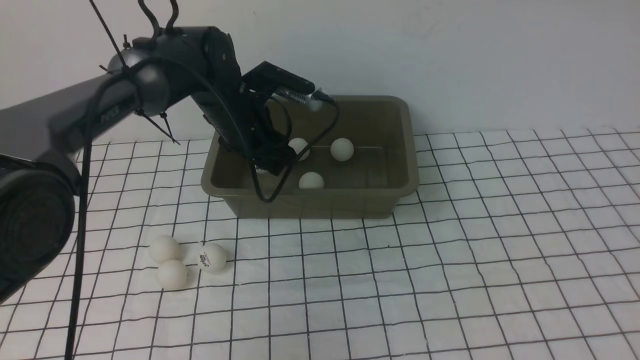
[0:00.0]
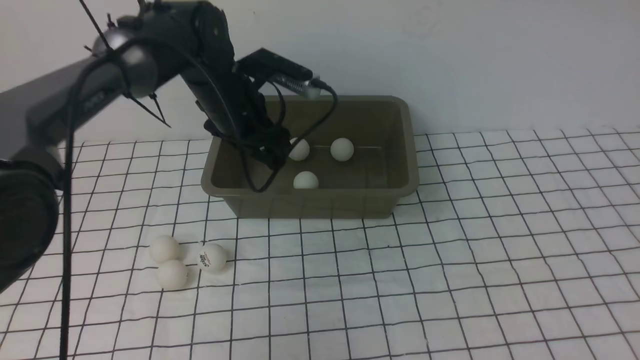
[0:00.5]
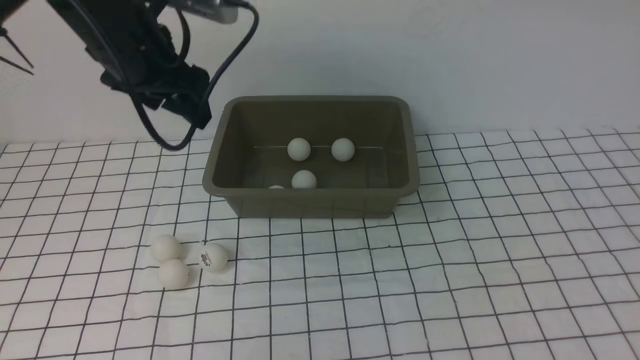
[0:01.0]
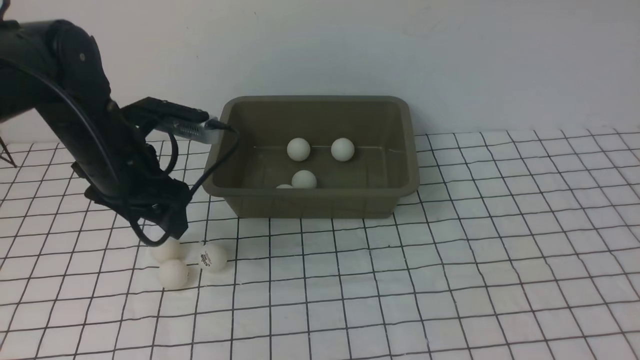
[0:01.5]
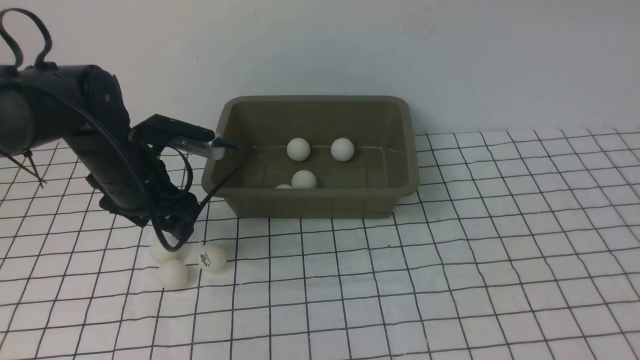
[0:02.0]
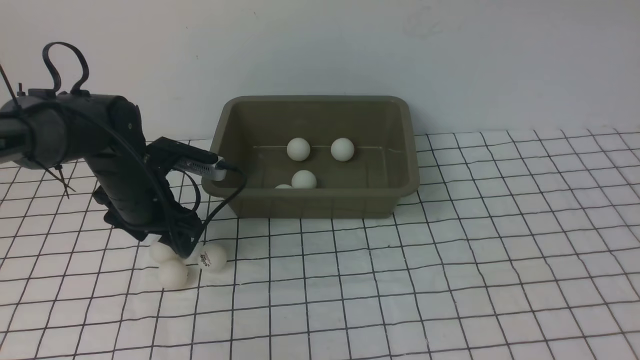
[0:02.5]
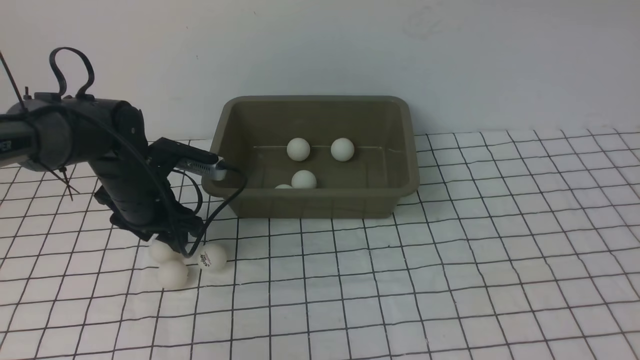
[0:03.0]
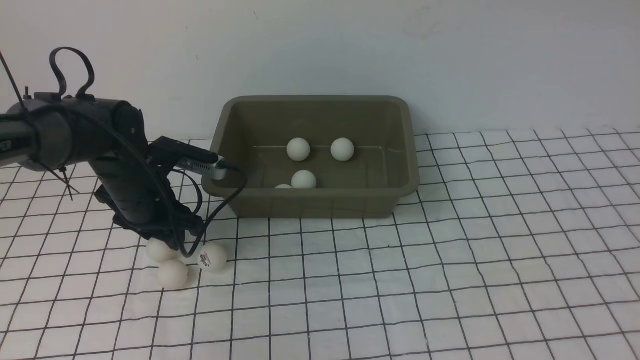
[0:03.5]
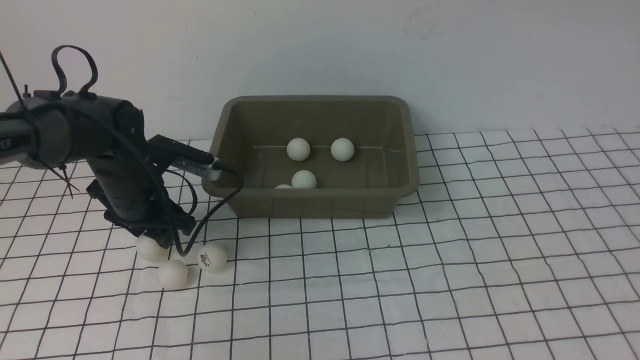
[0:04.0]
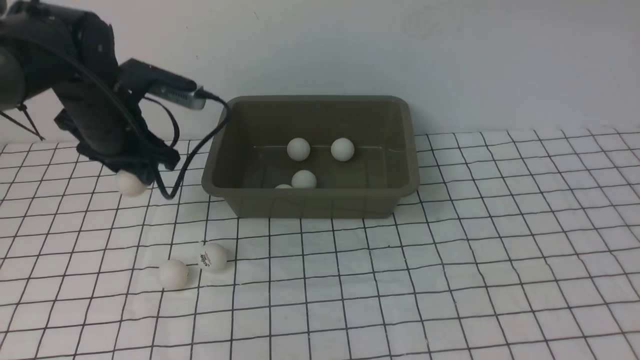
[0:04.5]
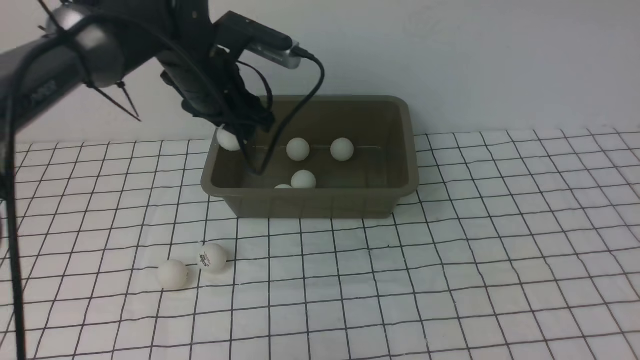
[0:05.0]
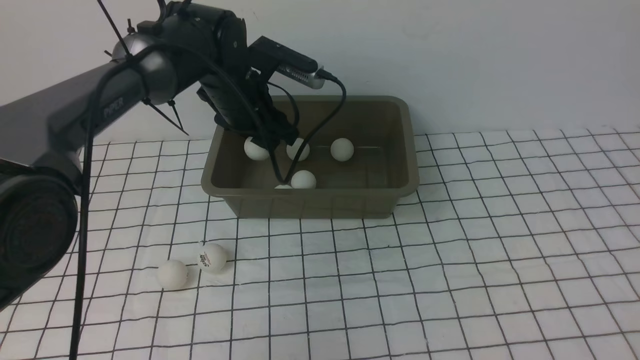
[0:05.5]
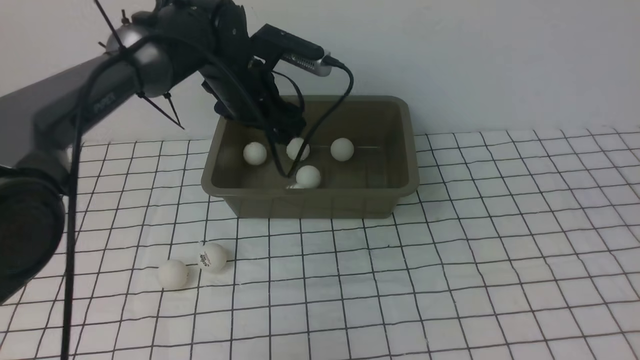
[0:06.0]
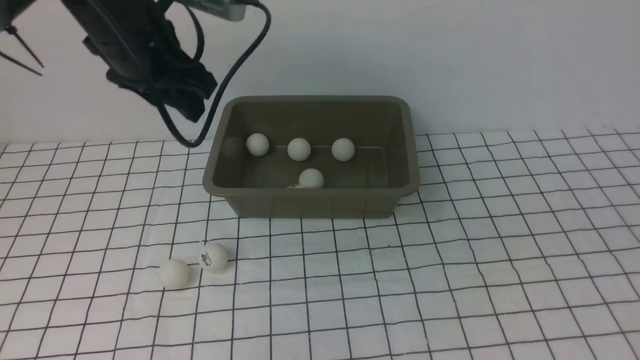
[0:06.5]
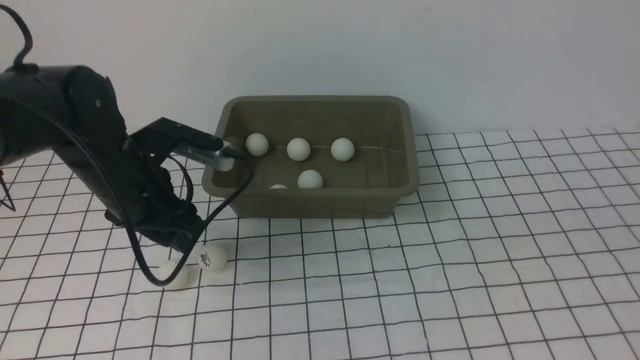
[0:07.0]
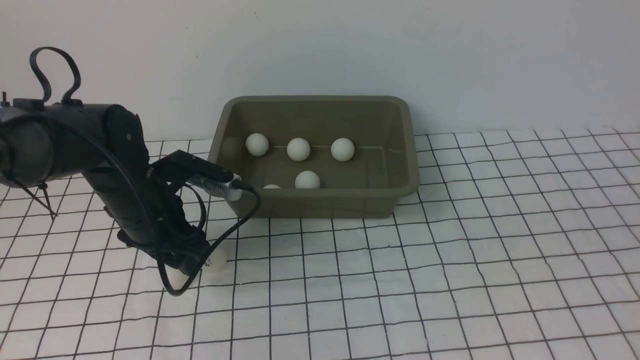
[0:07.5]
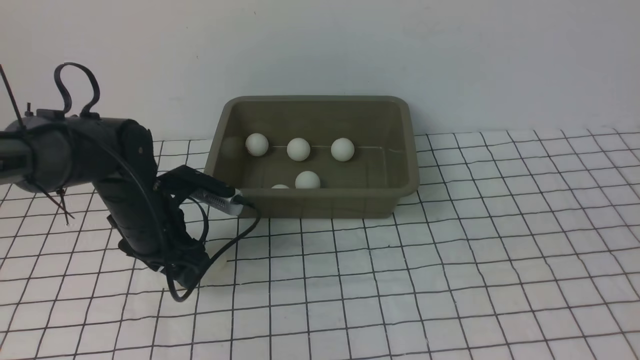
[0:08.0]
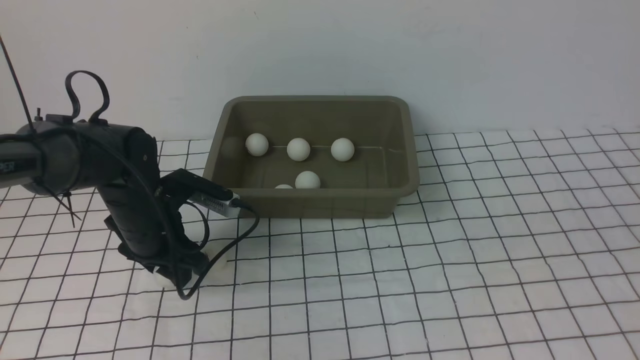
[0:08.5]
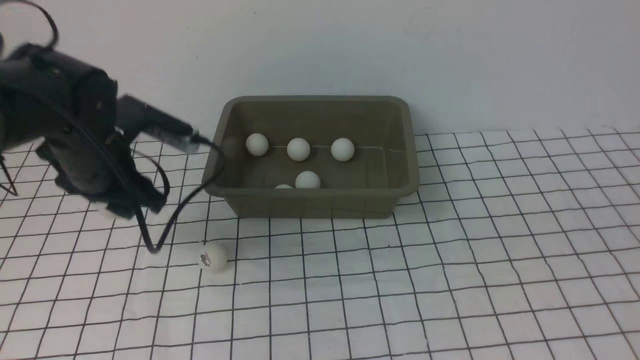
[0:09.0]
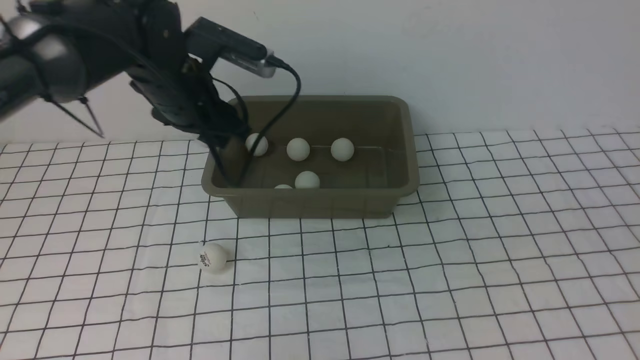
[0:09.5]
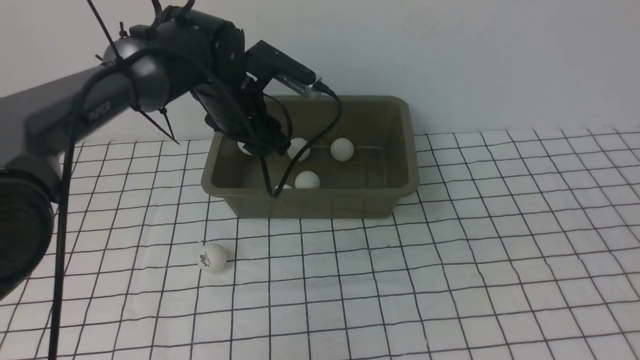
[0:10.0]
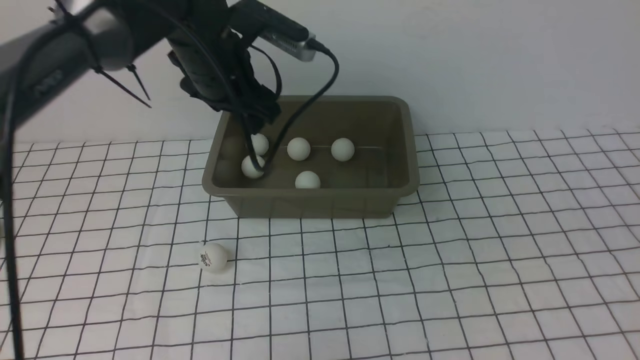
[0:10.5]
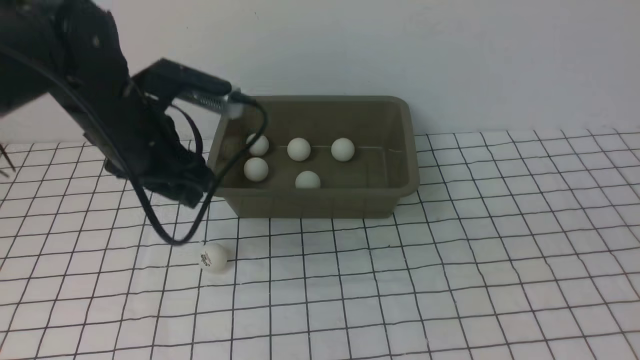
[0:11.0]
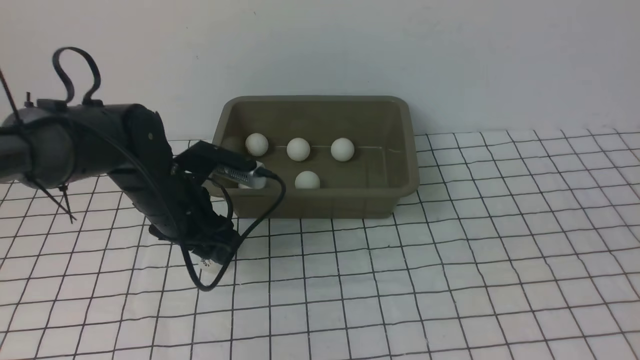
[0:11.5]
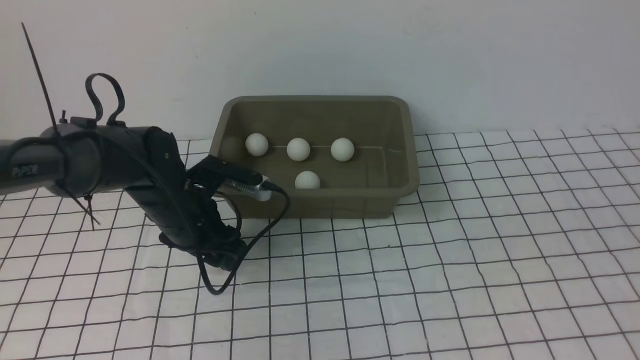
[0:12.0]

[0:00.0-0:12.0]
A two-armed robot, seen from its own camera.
Step, 0:00.5 to 0:04.0: use the left arm to clamp the table tennis ball closest to it.
Step, 0:05.0 to 0:05.5: use the left arm to put the table tennis ball into the box.
Step, 0:06.0 to 0:09.0: use the left arm to clamp the table tennis ball closest to it.
Step, 0:09.5 to 0:10.0: use the left arm to put the table tennis ball into the box.
0:00.0 to 0:02.0: The left gripper travels to the left and backward by some 15 cm, and travels upward and back again, approximately 10 cm each way.
0:02.0 to 0:04.0: The left gripper closes its fingers.
0:04.0 to 0:06.0: The left gripper goes approximately 15 cm upward and to the right, while the right gripper is displaced downward, backward and to the right by about 25 cm, and closes up.
0:06.0 to 0:08.0: The right gripper travels downward by roughly 5 cm; the left gripper travels downward, backward and to the left by about 20 cm.
0:08.0 to 0:10.0: The left gripper travels forward, upward and to the right by about 15 cm.
0:10.0 to 0:12.0: The left gripper goes some 15 cm downward, backward and to the left.

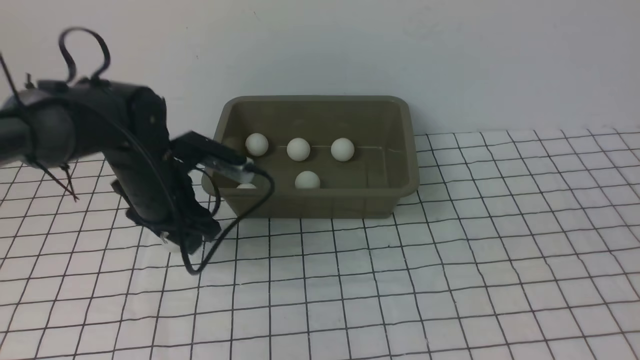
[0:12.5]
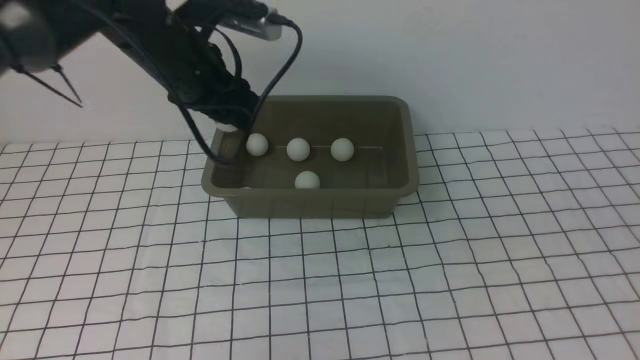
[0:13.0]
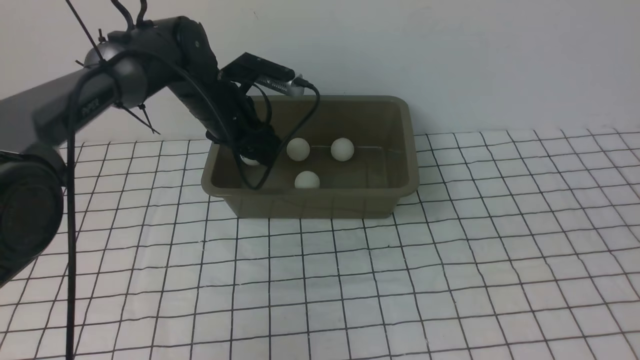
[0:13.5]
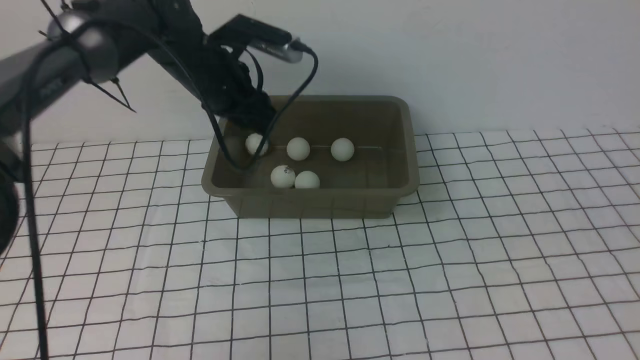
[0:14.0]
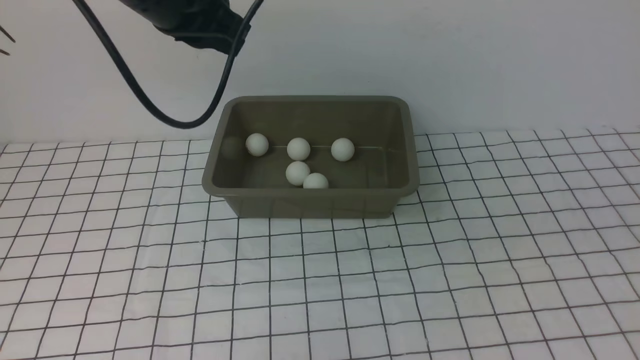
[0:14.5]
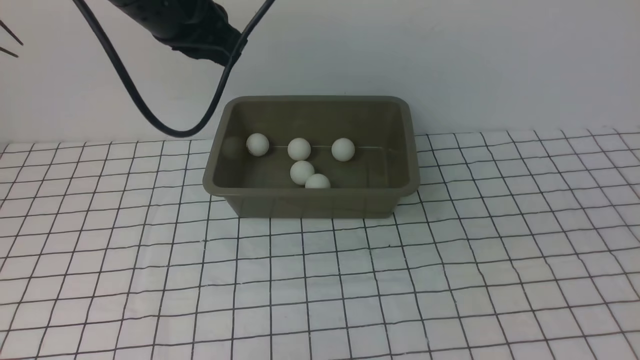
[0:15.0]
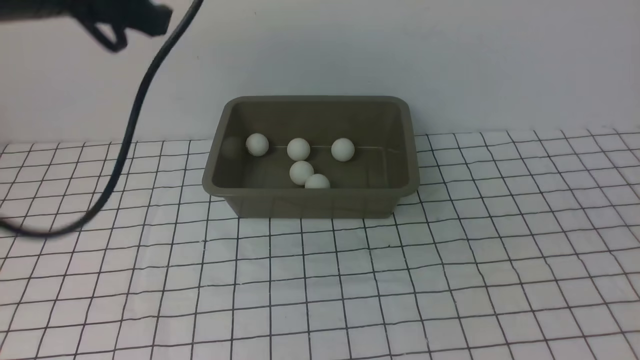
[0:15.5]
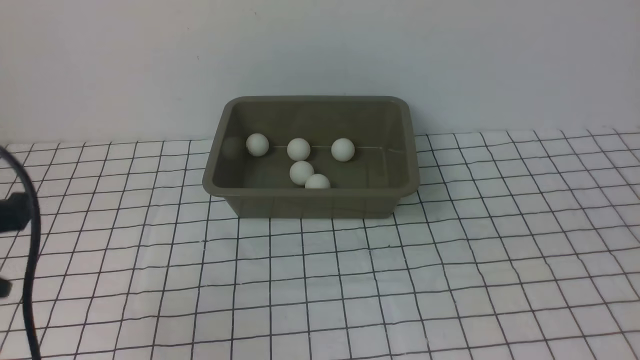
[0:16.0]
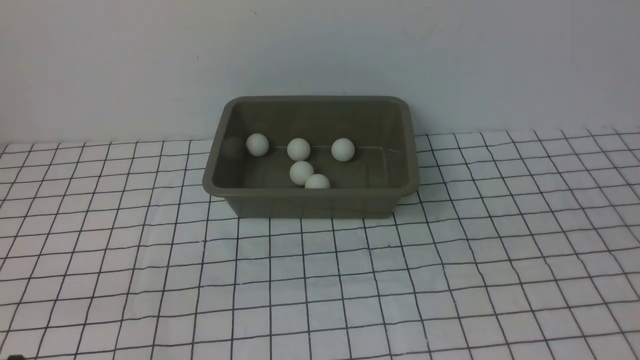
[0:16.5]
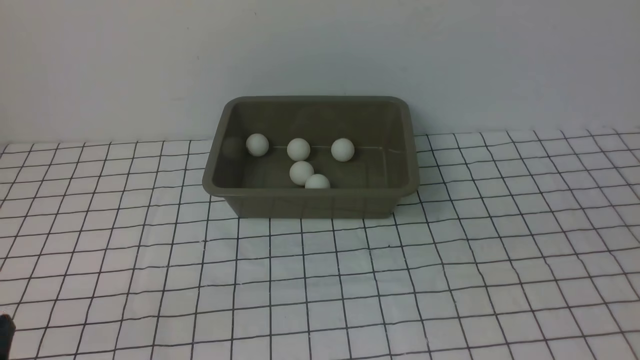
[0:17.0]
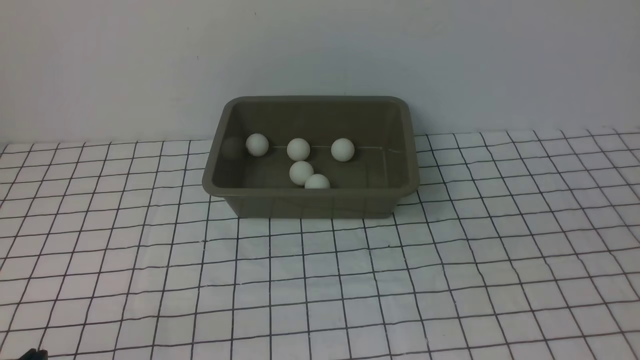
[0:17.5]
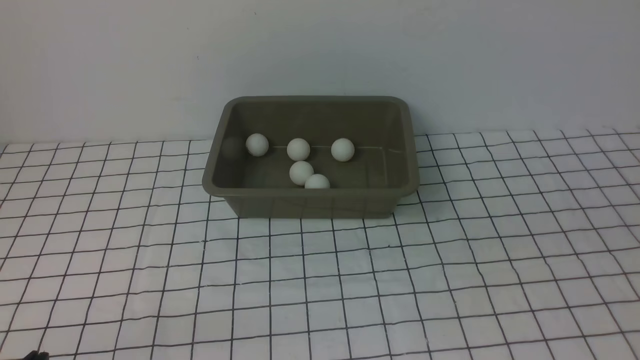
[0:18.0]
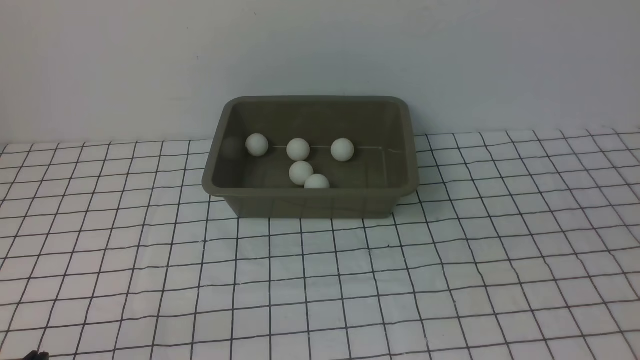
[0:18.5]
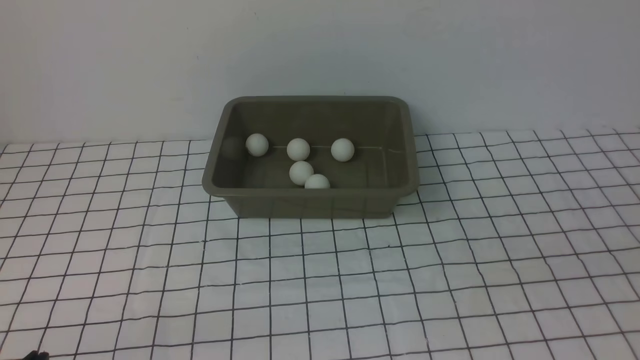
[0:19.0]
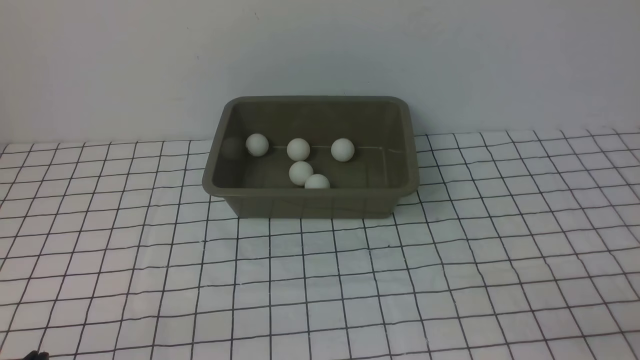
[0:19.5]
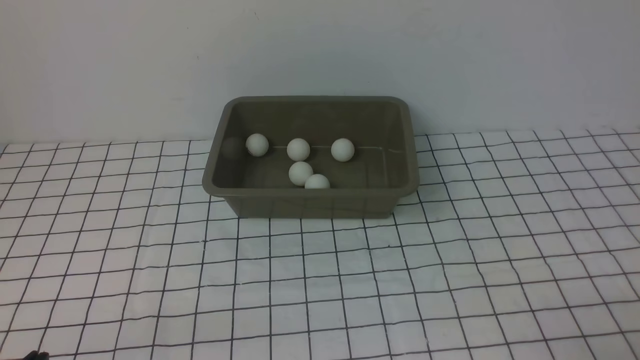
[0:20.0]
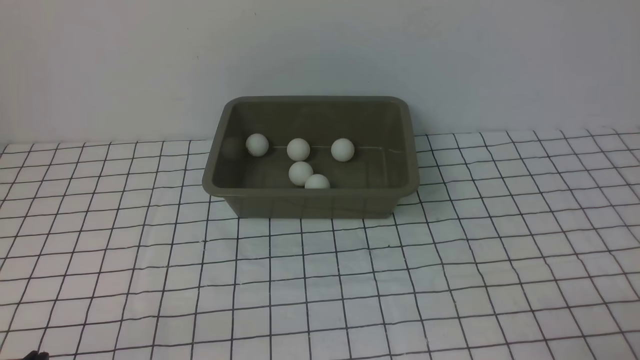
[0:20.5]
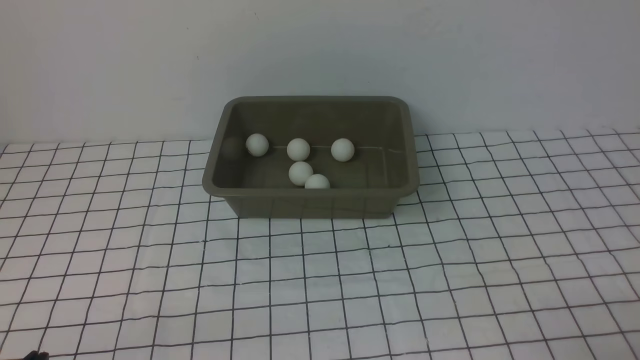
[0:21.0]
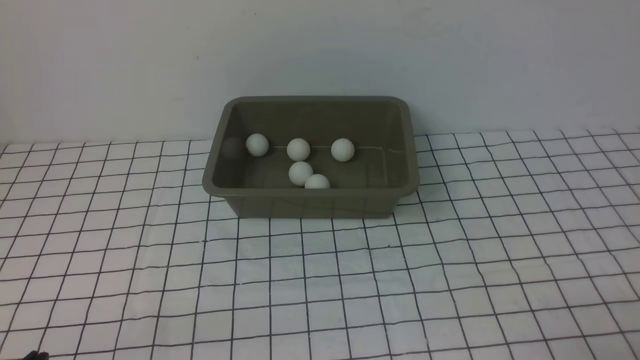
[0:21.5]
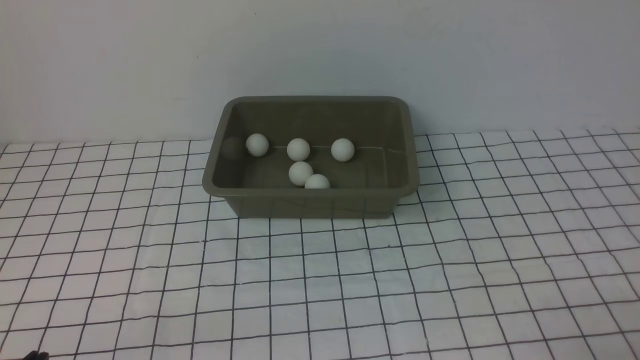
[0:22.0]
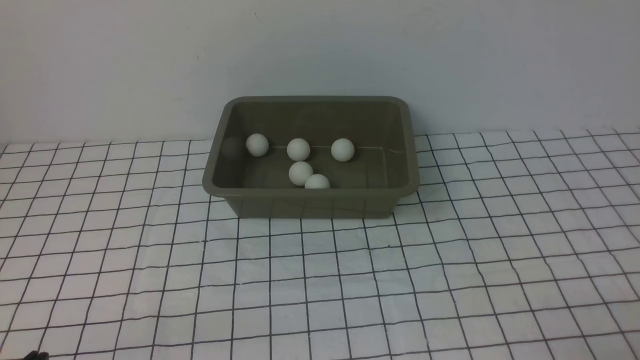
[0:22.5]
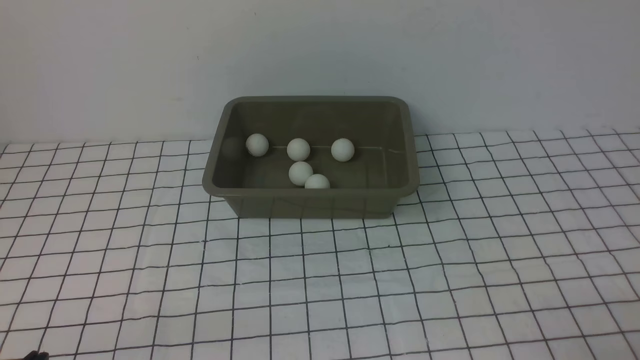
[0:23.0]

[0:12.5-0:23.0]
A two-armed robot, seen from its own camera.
Step, 0:13.0 to 0:13.5: use the left arm to put the table tennis ball into the box.
0:12.5 to 0:14.5: The left gripper moves up and down over about 20 cm, changing direction 2 times, and closes.
0:14.5 to 0:16.5: The left gripper heads backward and downward, covering some 40 cm.
0:21.0 to 0:23.0: Neither gripper changes place.
